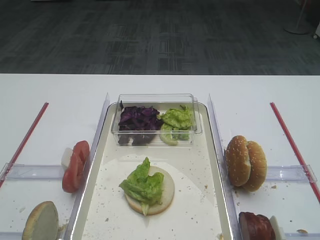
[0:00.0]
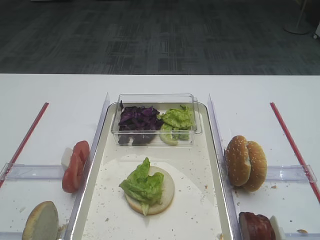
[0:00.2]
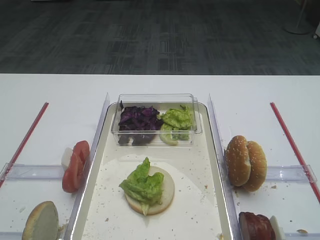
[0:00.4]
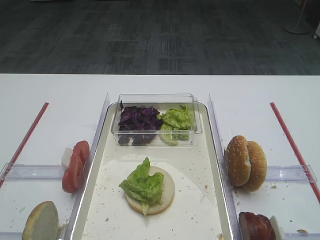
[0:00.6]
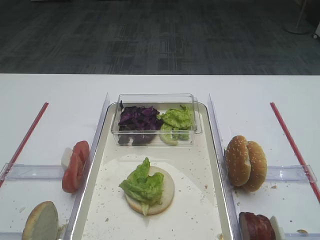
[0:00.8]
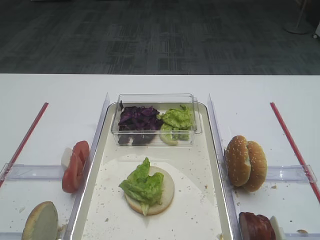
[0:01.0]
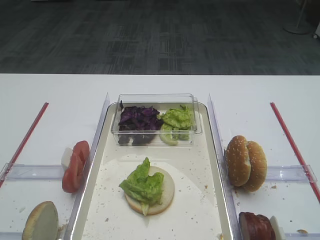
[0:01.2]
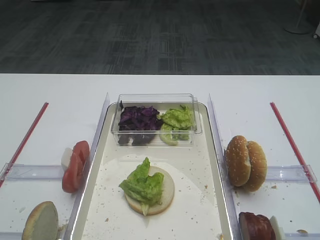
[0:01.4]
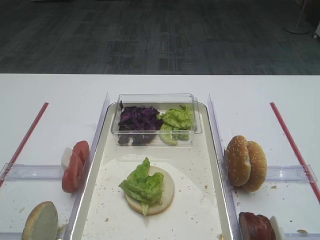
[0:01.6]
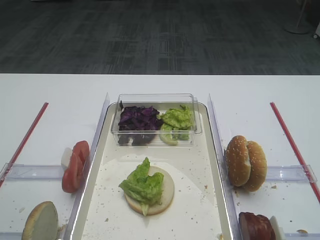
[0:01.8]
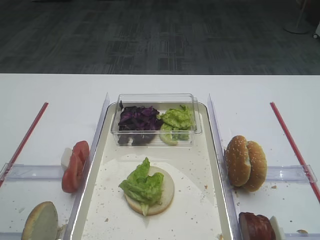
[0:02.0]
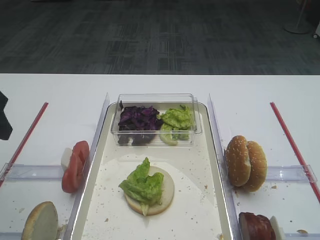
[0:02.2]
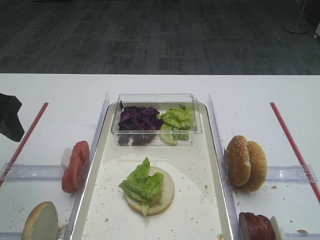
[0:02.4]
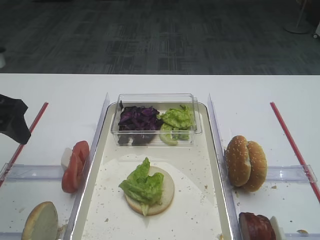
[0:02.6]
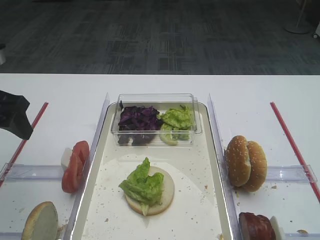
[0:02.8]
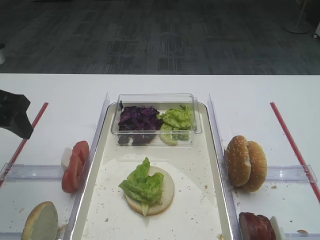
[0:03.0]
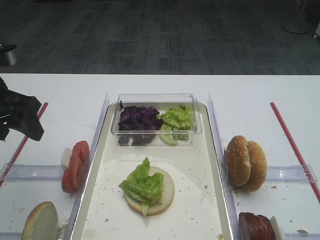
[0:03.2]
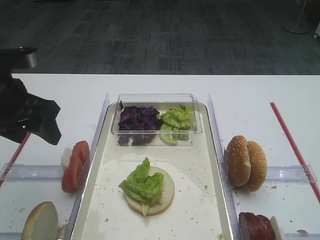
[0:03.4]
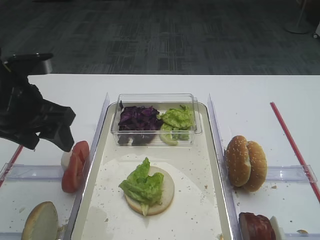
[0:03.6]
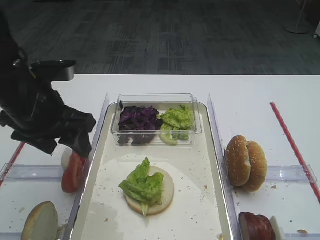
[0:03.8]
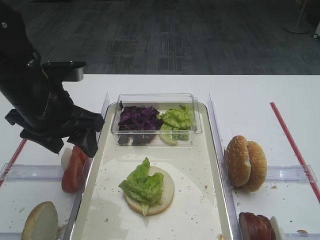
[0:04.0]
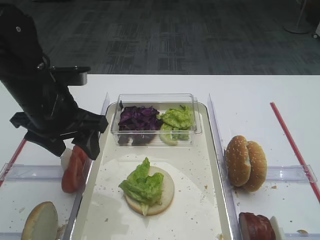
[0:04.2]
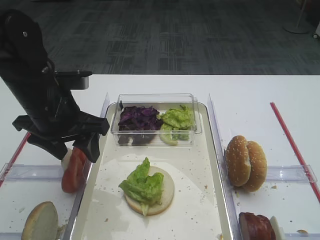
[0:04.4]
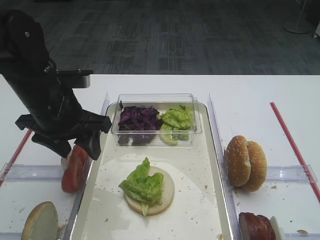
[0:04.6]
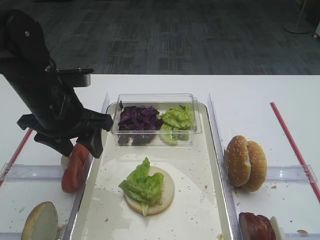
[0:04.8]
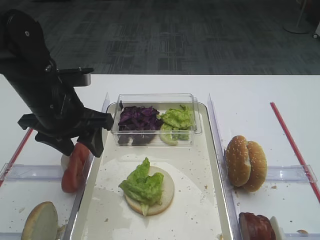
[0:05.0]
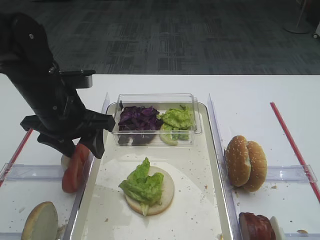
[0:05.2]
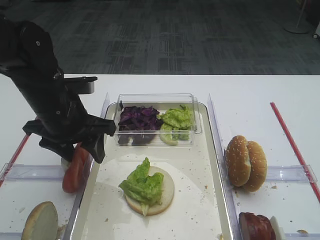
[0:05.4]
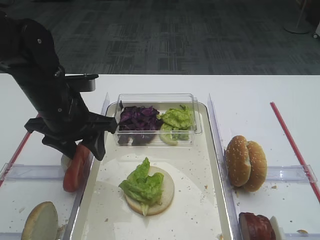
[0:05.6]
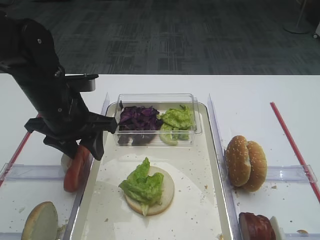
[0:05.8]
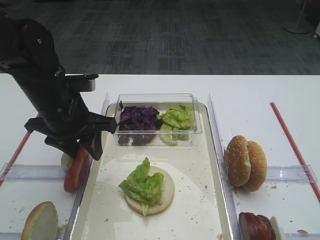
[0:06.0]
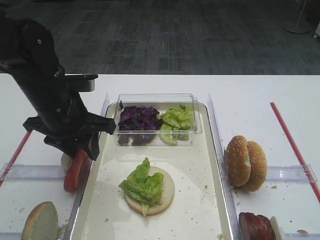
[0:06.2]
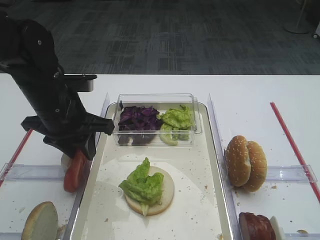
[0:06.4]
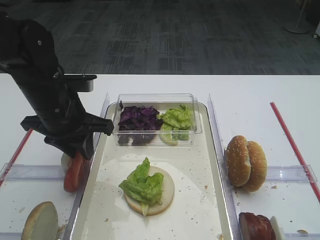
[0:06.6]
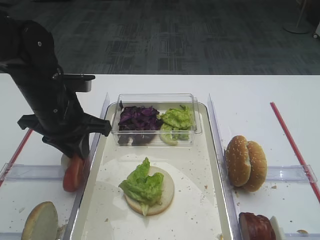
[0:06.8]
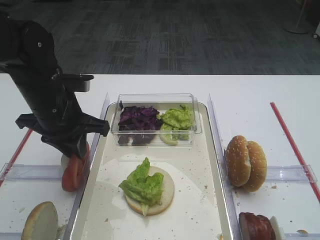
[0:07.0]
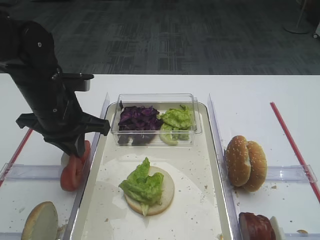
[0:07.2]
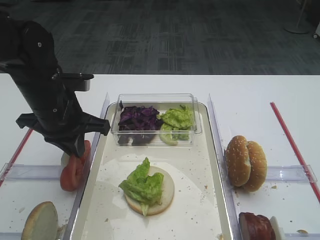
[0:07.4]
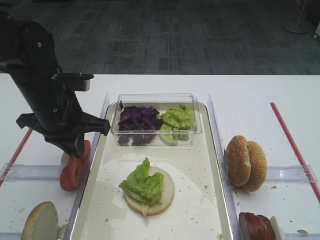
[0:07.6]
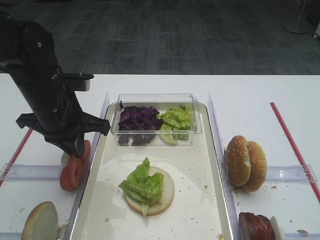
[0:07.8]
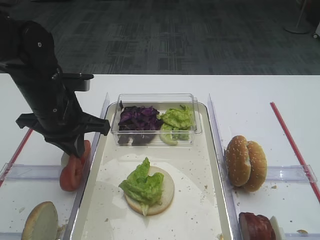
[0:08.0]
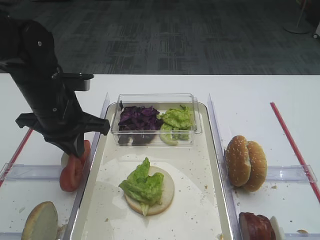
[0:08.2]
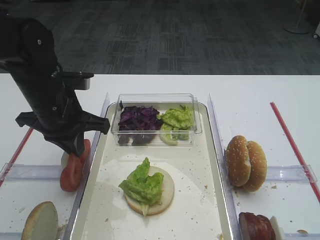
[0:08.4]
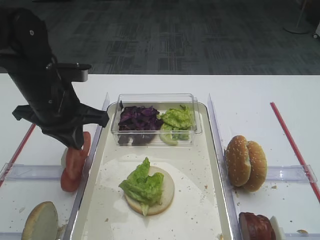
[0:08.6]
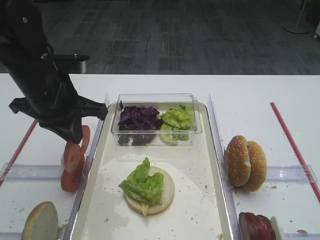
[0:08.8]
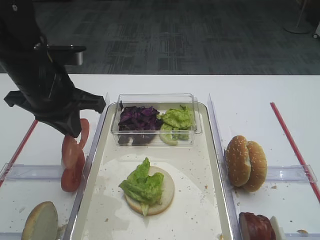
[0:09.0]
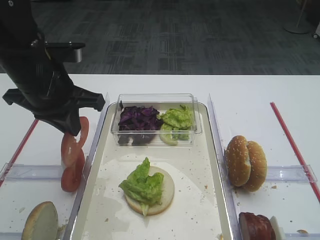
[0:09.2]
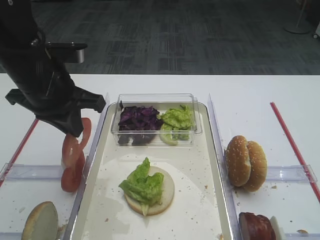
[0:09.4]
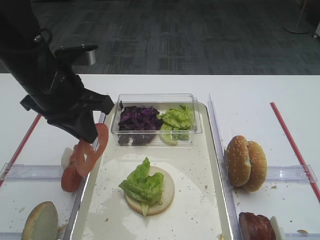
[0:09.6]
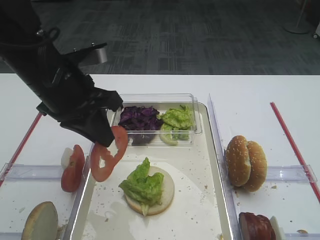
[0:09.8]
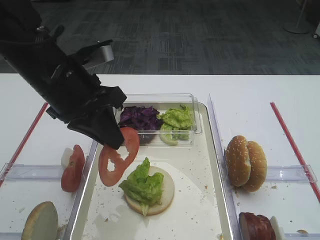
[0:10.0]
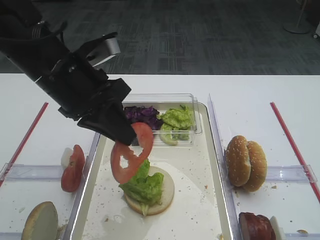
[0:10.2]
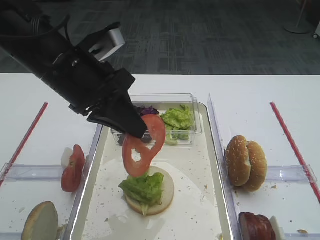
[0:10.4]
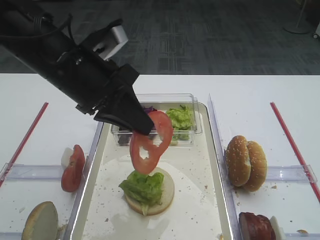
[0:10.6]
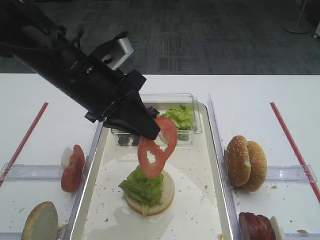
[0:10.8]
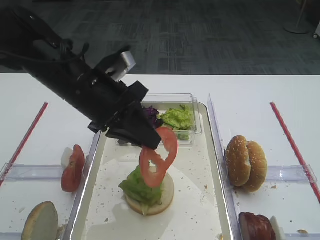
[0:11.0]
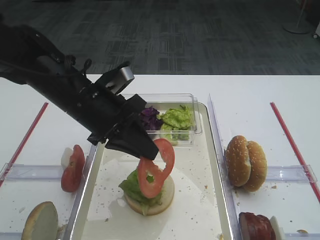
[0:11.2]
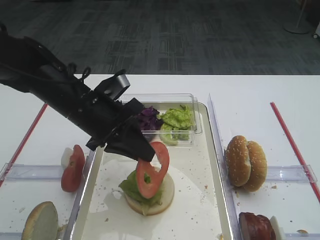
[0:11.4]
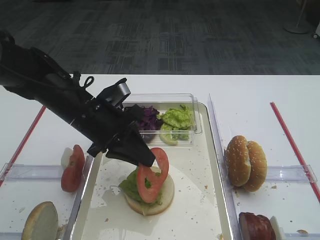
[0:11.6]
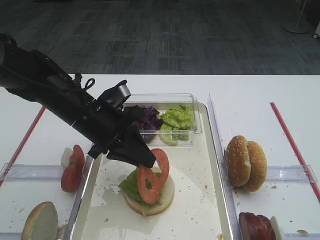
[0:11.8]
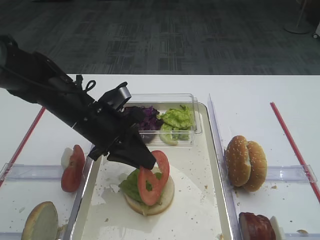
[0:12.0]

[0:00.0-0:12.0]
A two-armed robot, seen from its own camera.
Step, 0:00.0 to 0:09.0: Pick up the tomato slice with the left gripper.
0:01.6 to 0:03.0: The left gripper is displaced forward by about 20 cm.
0:03.0 to 0:04.4: The left gripper heads to the right, covering roughly 10 cm.
0:04.4 to 0:06.0: The grippers move only a little.
0:06.0 to 0:07.6: The left gripper closes.
0:07.6 to 0:09.0: The left gripper moves roughly 5 cm.
0:09.0 to 0:10.4: The left gripper ends up some 5 cm from where it was.
0:10.4 to 0:12.0: The left gripper goes approximately 10 cm downward.

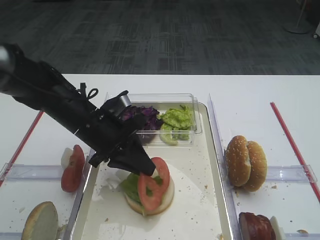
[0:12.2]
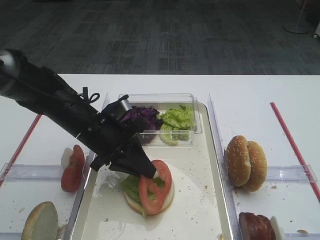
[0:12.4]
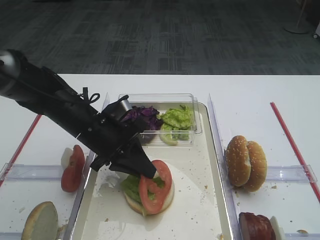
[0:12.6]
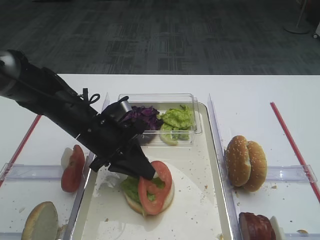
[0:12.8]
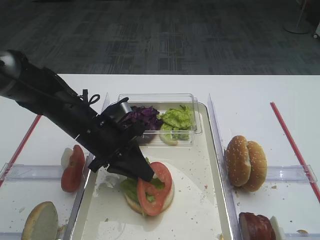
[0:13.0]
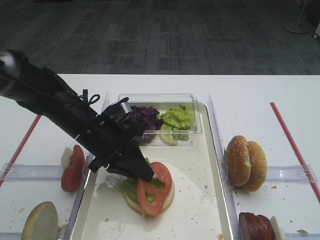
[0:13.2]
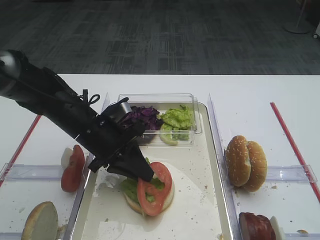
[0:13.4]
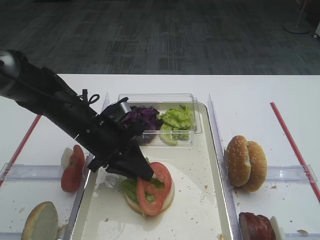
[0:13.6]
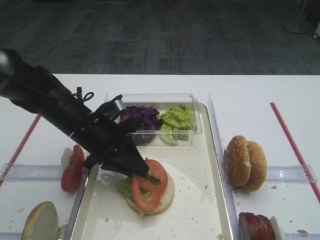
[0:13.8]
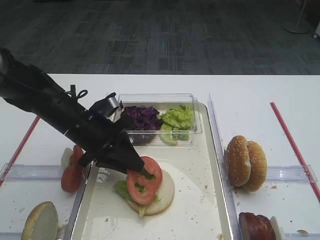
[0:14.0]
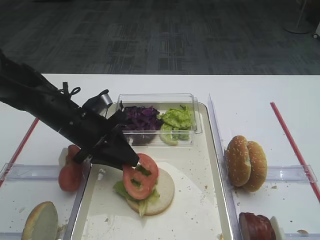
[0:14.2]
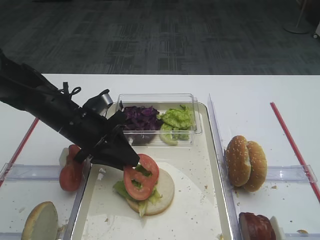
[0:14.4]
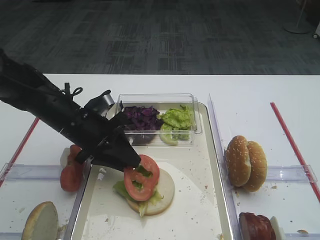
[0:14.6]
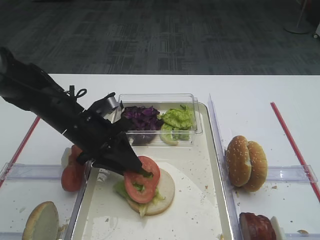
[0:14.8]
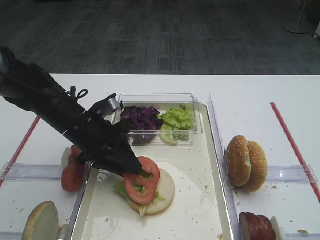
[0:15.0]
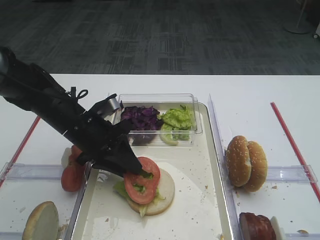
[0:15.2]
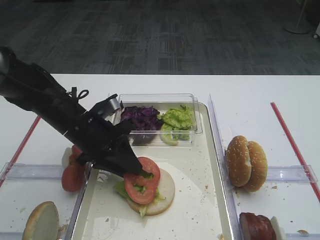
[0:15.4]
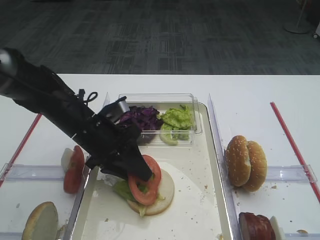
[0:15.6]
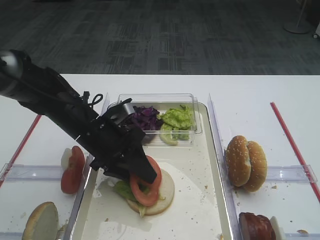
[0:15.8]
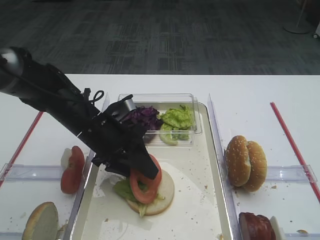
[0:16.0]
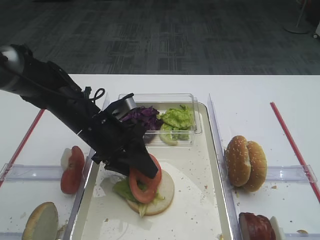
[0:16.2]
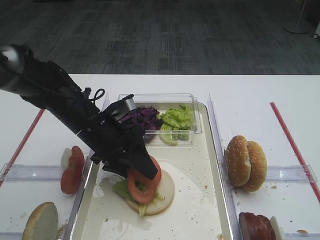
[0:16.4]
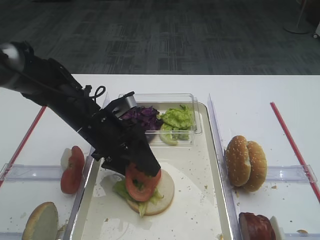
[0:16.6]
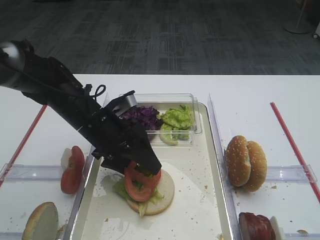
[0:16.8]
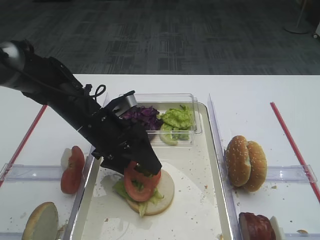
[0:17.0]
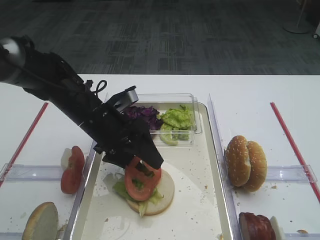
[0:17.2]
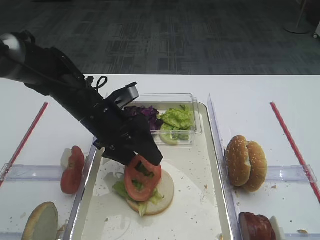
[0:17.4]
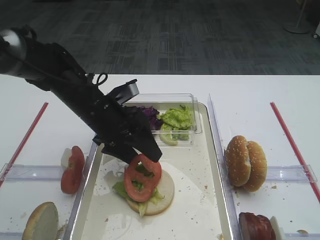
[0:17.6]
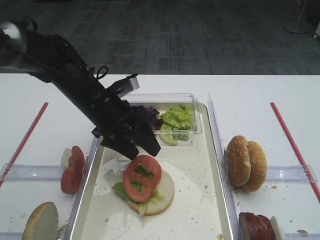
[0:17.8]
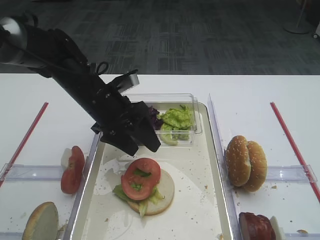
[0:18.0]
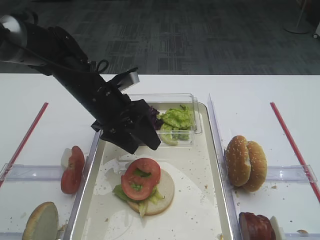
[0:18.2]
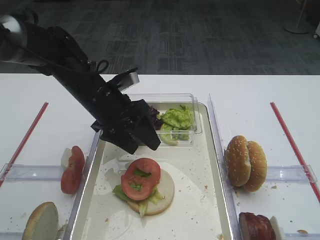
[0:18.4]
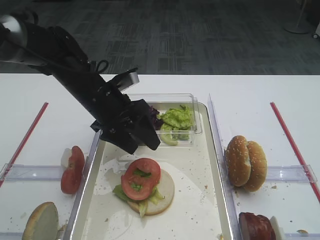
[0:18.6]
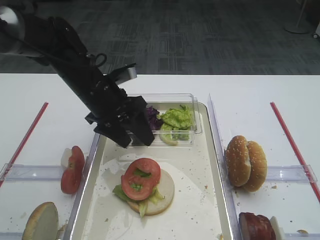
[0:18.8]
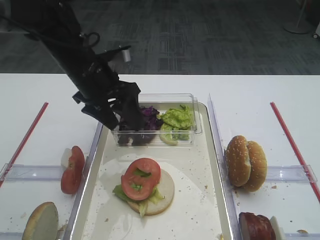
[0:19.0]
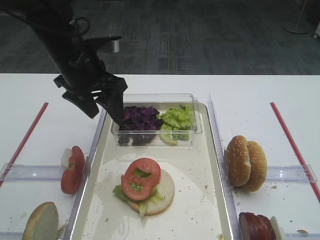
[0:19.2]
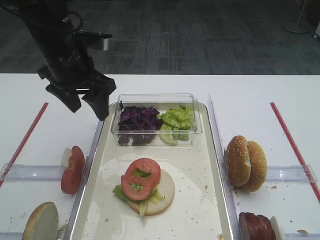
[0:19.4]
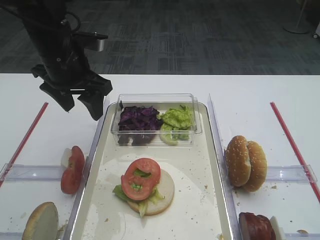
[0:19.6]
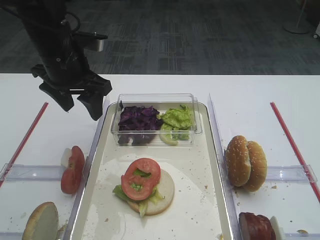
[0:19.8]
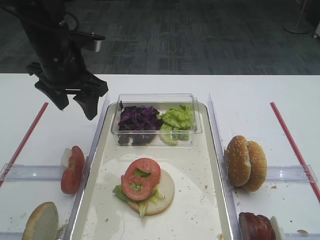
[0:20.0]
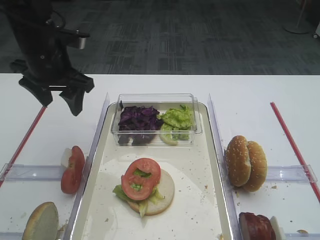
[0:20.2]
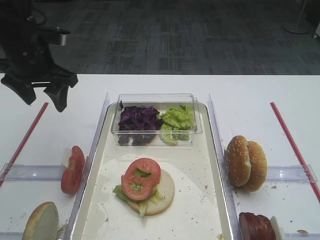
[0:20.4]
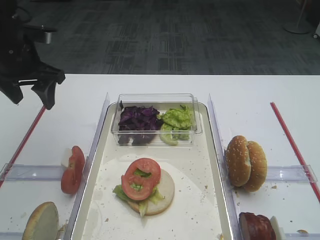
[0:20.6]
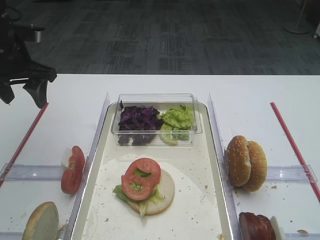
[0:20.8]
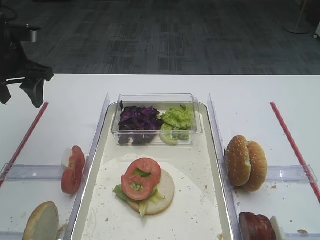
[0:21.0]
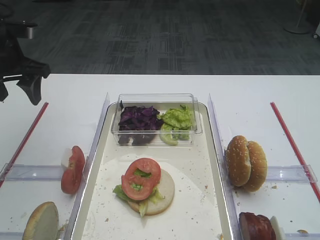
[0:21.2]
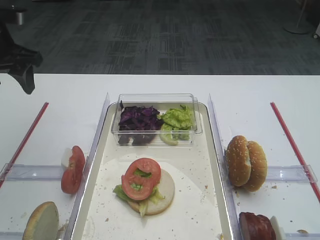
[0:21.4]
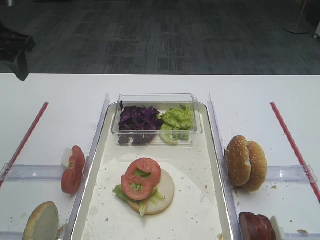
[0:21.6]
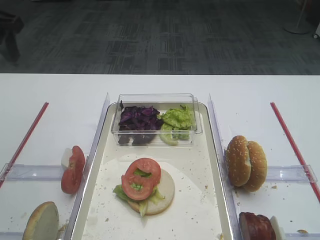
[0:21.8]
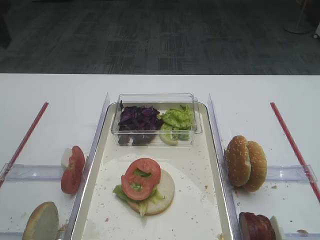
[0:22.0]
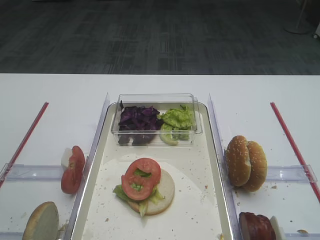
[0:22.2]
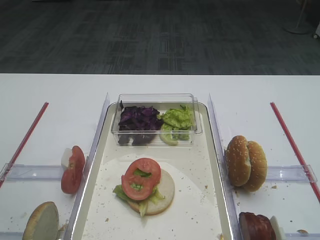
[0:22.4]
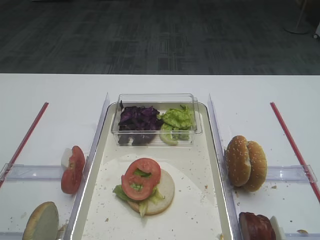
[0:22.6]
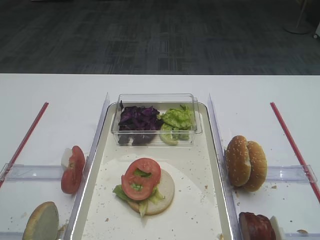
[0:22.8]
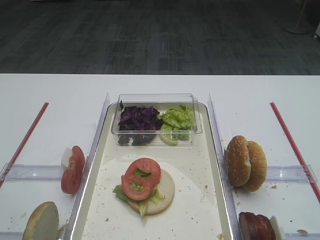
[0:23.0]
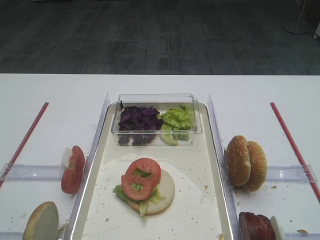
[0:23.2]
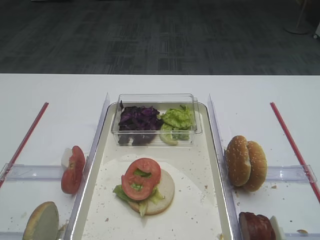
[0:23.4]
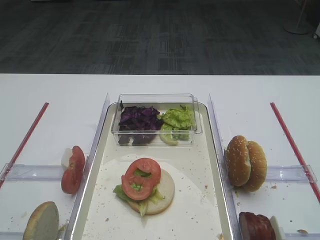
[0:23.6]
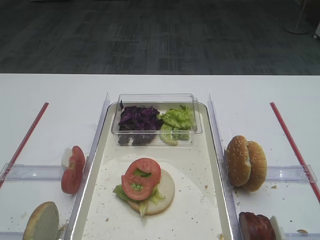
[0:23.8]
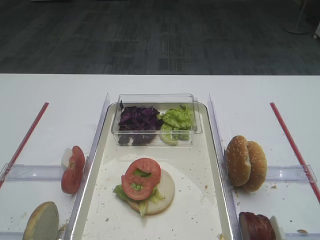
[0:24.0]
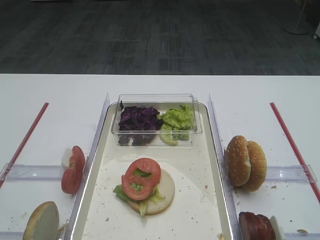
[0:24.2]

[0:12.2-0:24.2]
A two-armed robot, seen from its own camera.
Step, 0:12.2 to 0:18.0: Place the tomato slice on the lettuce leaf with the left gripper.
0:12.2 to 0:15.2: The grippers make only small movements.
0:15.2 to 0:16.6: The left gripper opens its fingers.
0:16.6 to 0:18.2: There are only small adjustments of the grippers.
0:18.2 to 0:19.8: The left gripper moves upward and to the left, some 10 cm.
0:19.8 to 0:21.2: The left gripper is displaced to the left by some 10 cm.
0:21.2 to 0:22.6: The left gripper shifts roughly 20 cm backward and upward.
